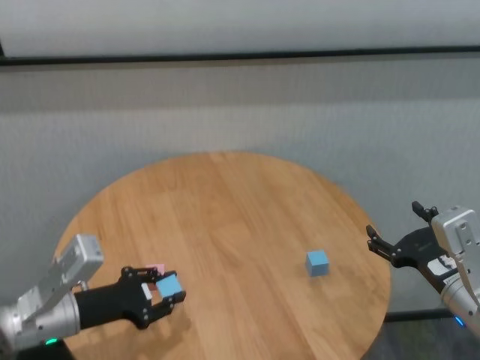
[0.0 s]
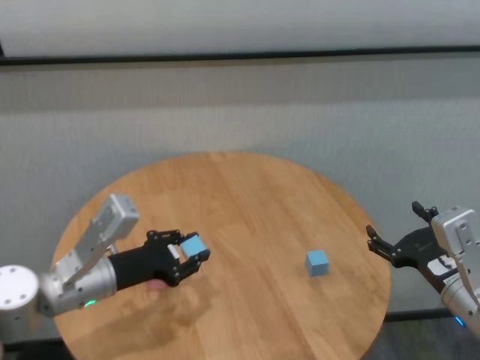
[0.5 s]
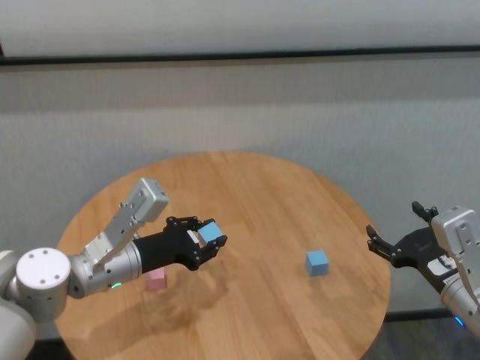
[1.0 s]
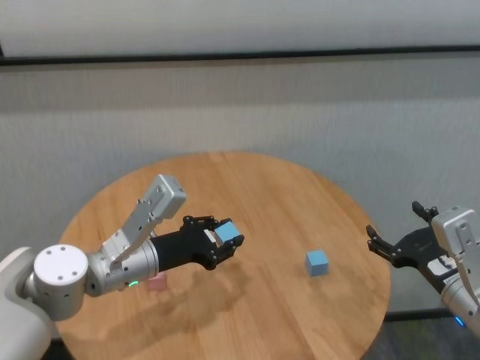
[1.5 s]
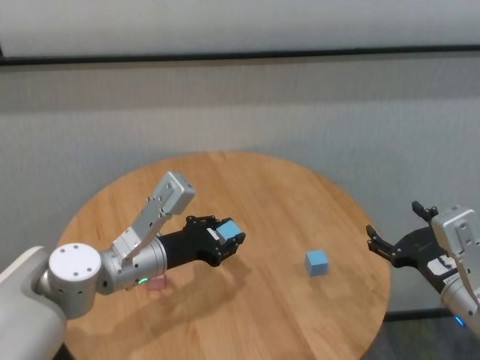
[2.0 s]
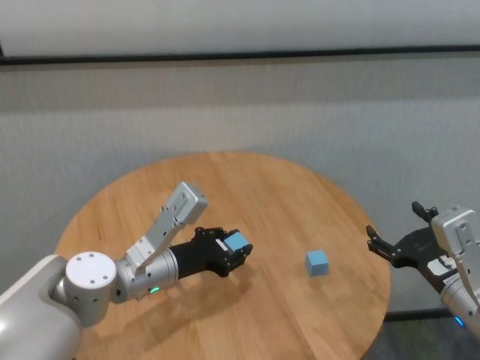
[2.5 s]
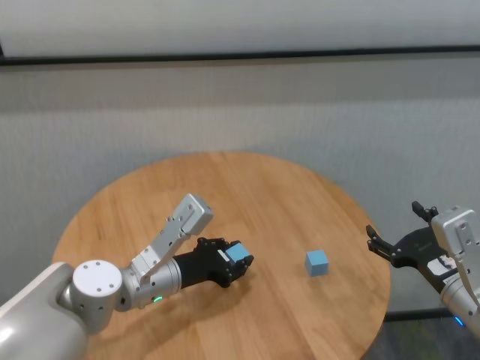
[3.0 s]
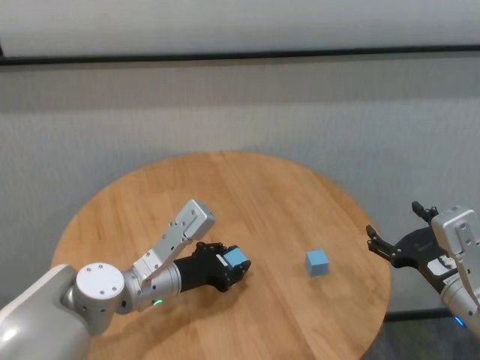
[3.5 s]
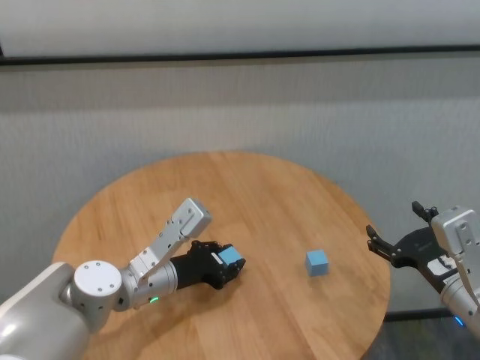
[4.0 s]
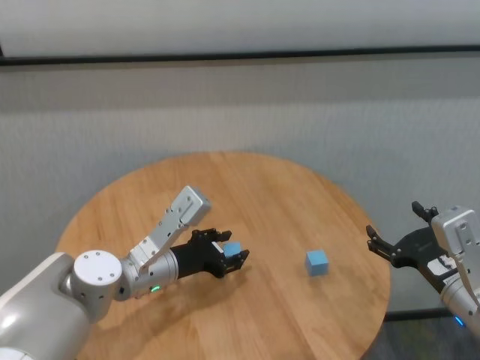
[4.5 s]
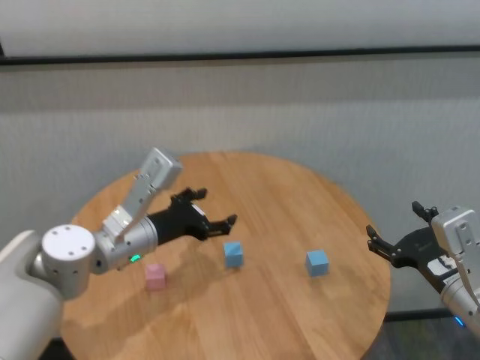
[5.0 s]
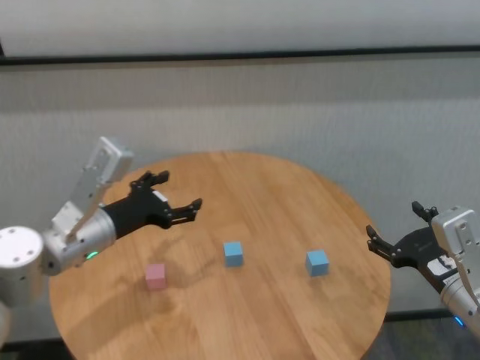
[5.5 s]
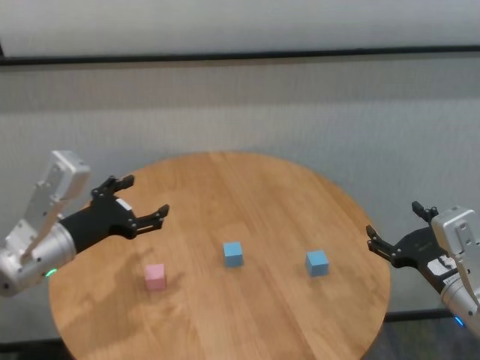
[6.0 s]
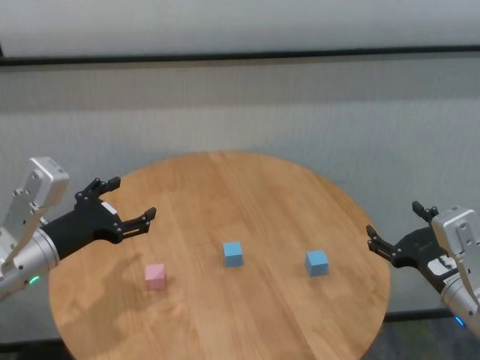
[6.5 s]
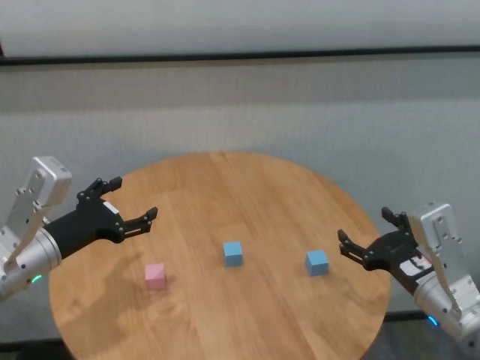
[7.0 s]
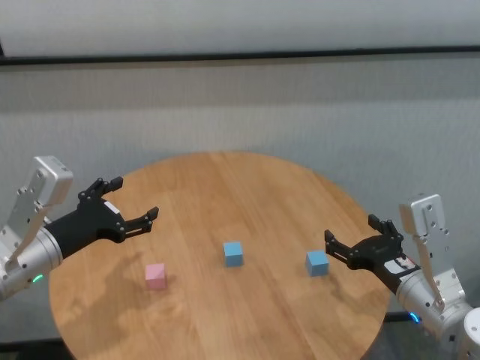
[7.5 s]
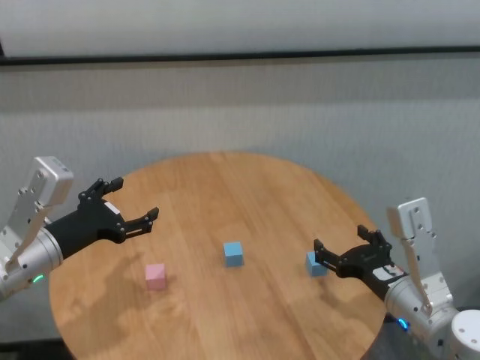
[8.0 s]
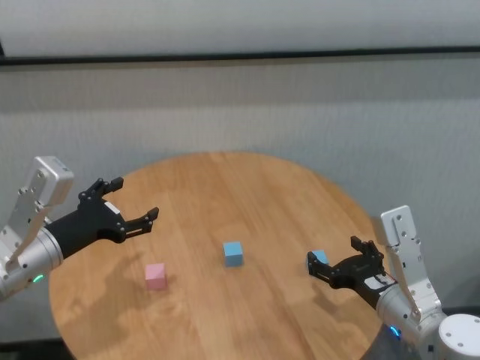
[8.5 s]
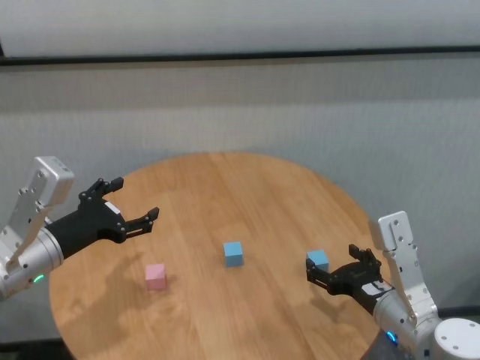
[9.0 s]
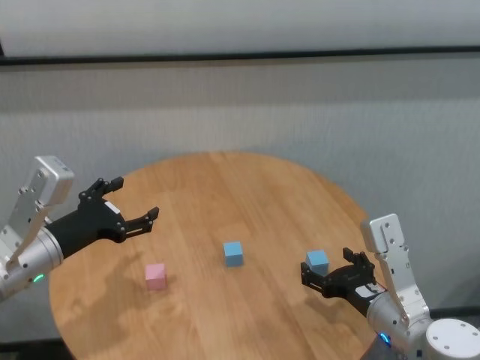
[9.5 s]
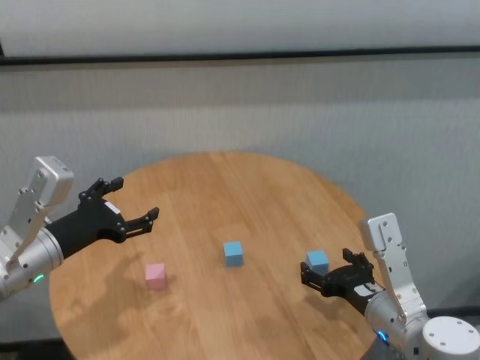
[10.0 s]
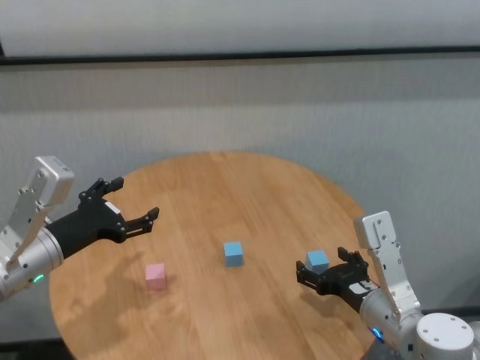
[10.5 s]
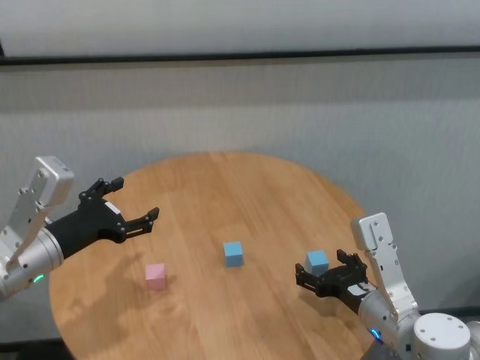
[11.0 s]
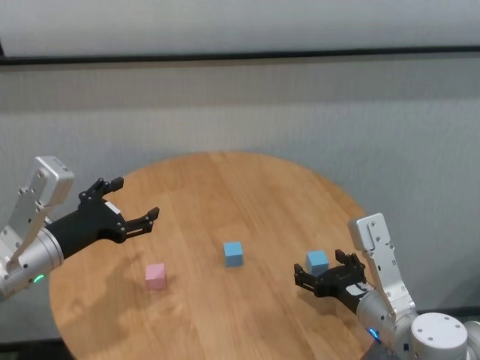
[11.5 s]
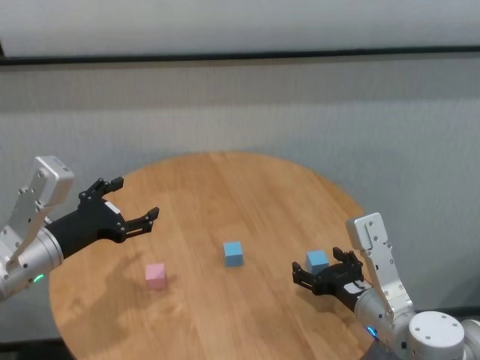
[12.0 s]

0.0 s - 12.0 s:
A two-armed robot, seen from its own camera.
Task of the whole recording: stack building blocks on the table.
Step, 0.0 s - 4.5 s: Place the blue building block in the center of table with left gripper.

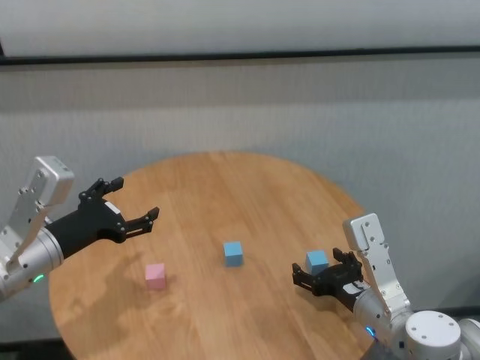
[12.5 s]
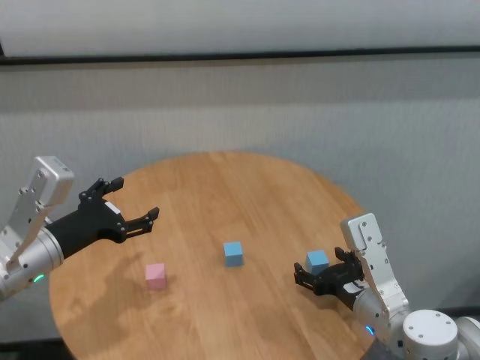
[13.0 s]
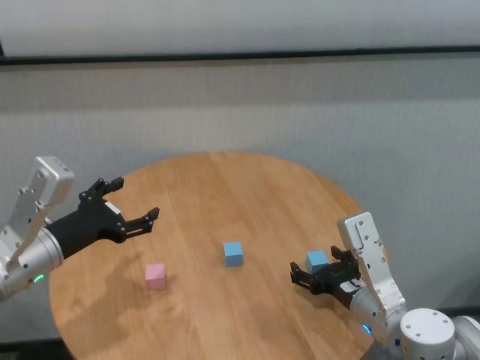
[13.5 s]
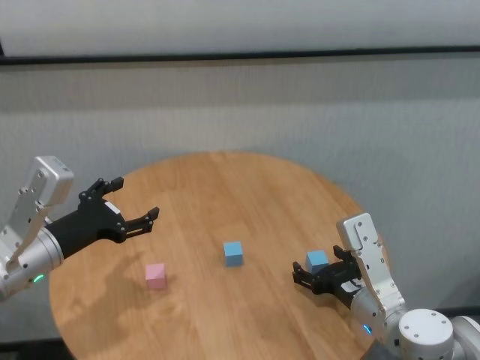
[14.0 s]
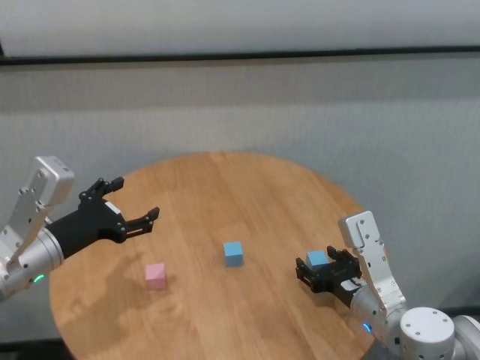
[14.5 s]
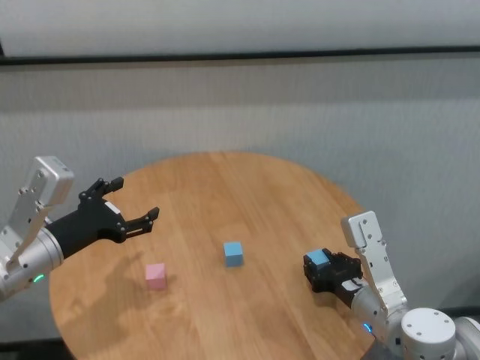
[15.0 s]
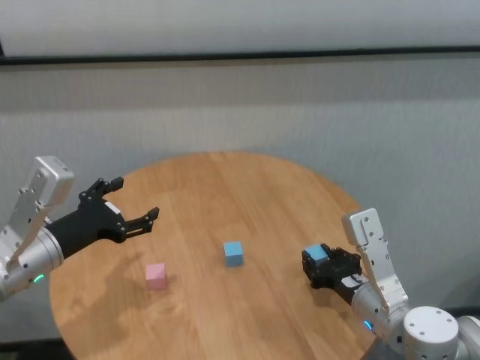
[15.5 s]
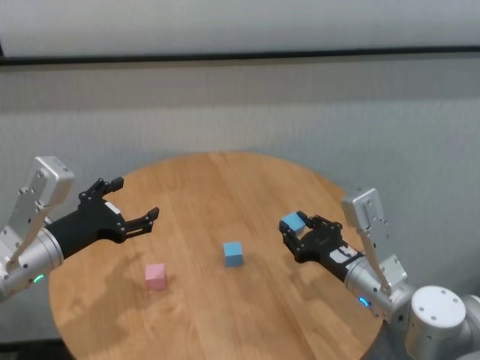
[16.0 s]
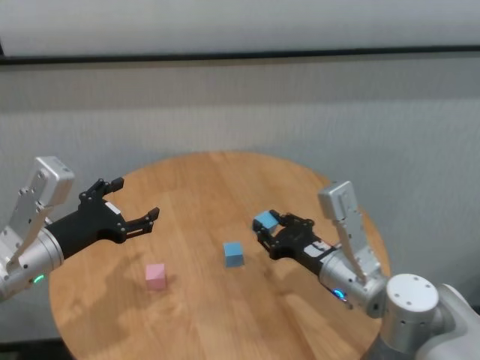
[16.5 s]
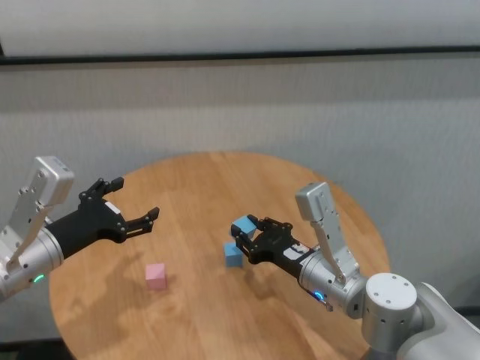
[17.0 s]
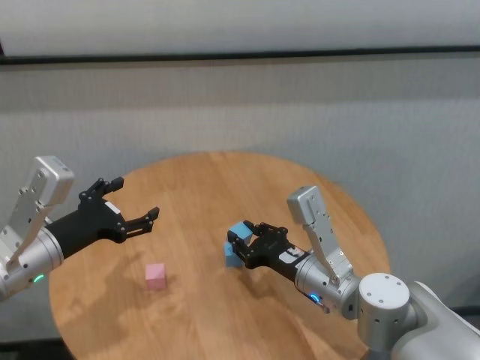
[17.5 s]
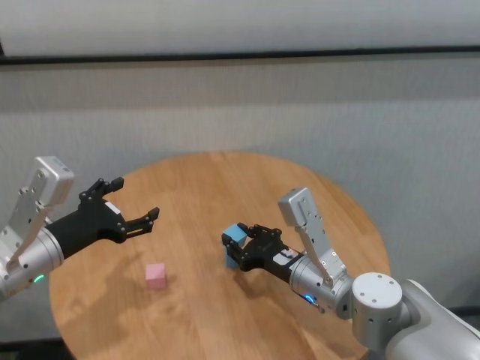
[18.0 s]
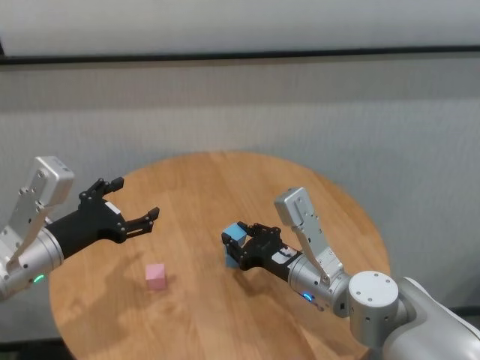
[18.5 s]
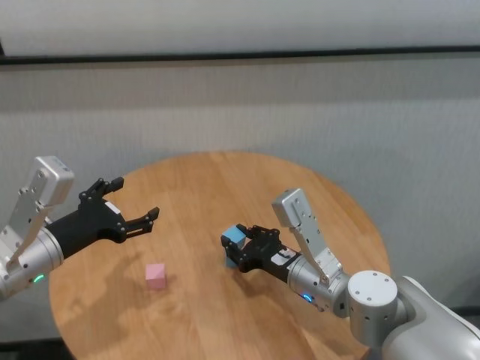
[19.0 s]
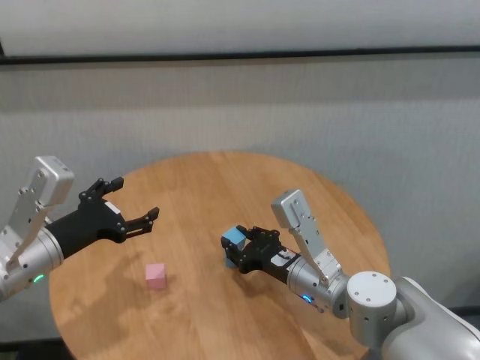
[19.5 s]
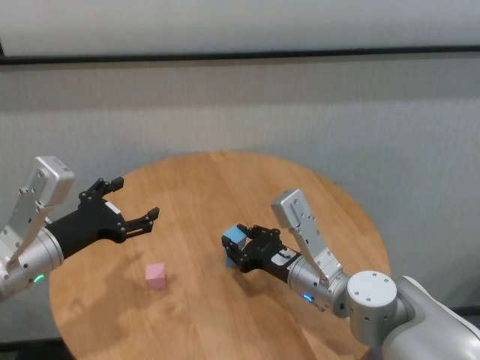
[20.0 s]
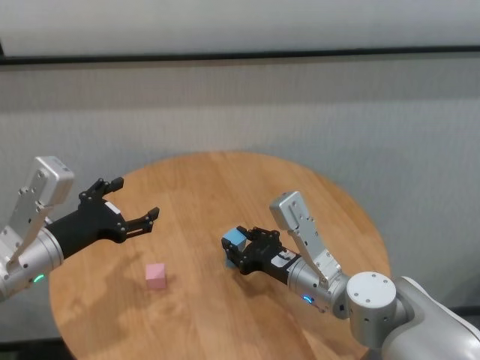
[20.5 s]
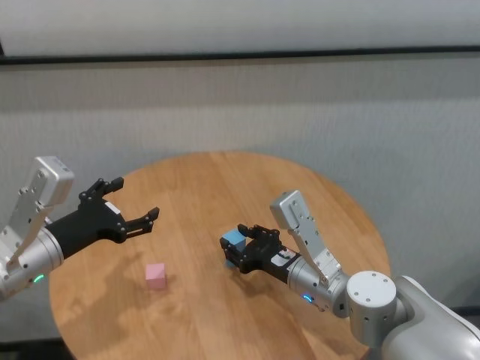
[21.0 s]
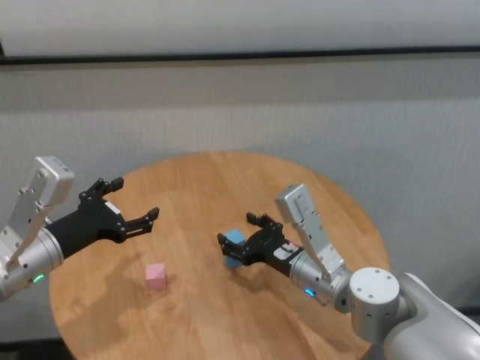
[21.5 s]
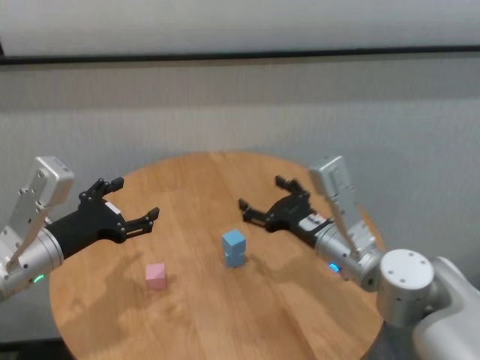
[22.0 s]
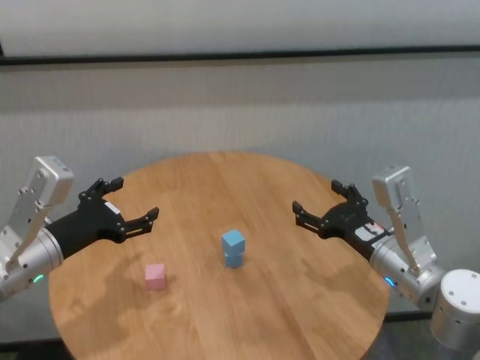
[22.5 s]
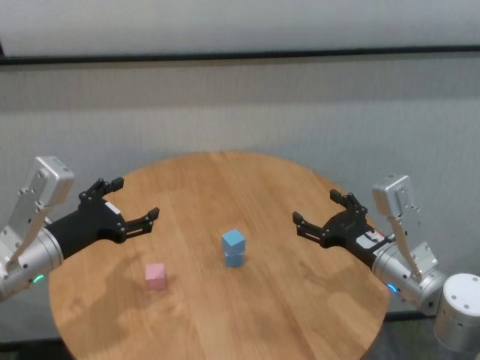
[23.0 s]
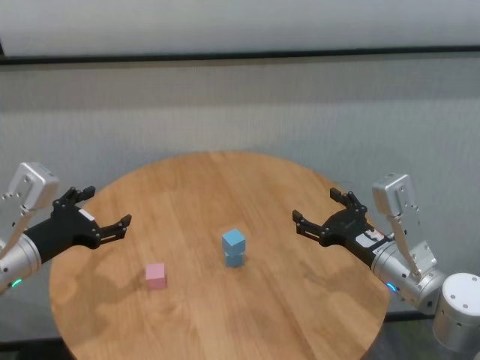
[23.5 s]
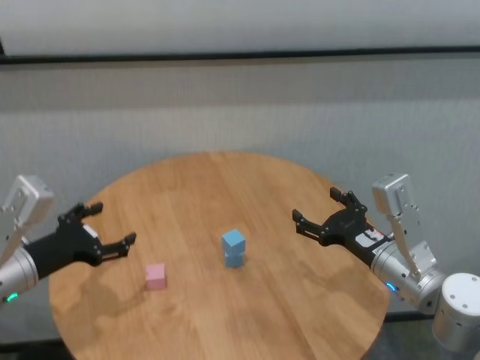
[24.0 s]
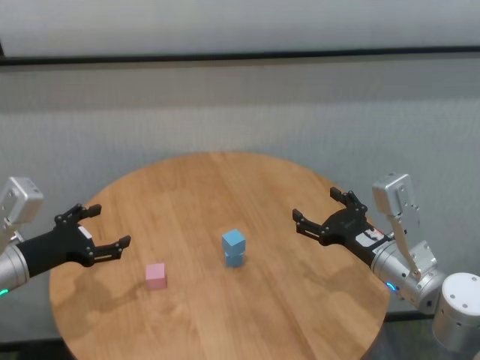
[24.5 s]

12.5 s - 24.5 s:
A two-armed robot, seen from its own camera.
Task of the whole recording: stack building blocks on the table.
Step, 12.5 s - 14.5 s: Grasp the blue building block with right gripper.
Step, 15.5 s - 21.0 s: Place the blue building block on the blue building blocks with right gripper.

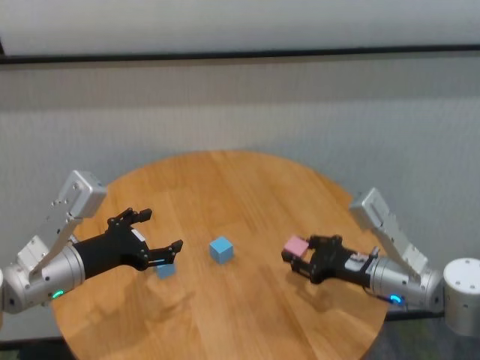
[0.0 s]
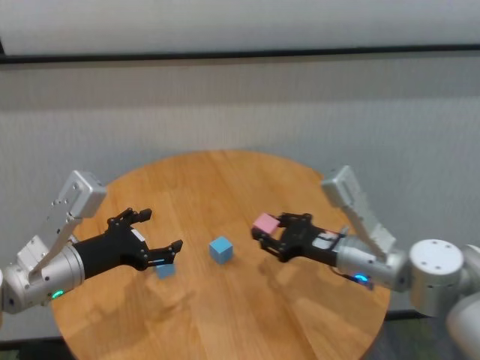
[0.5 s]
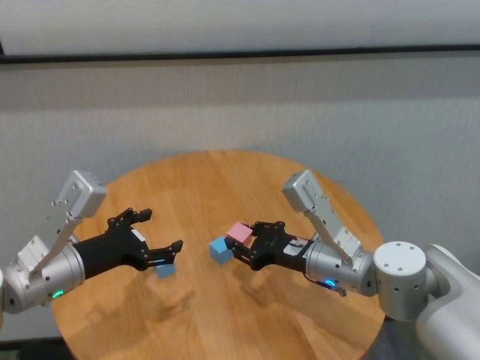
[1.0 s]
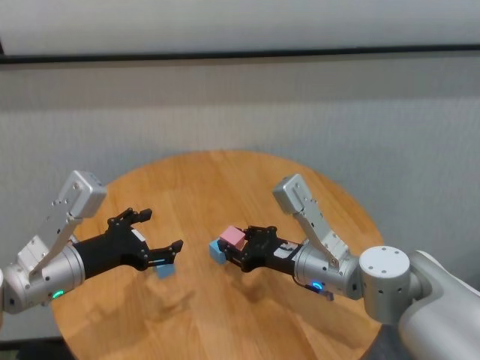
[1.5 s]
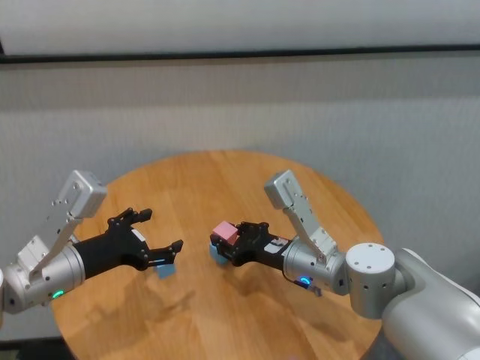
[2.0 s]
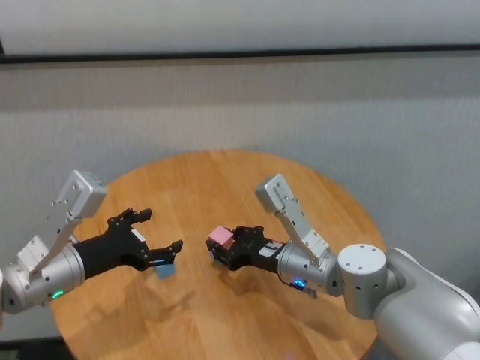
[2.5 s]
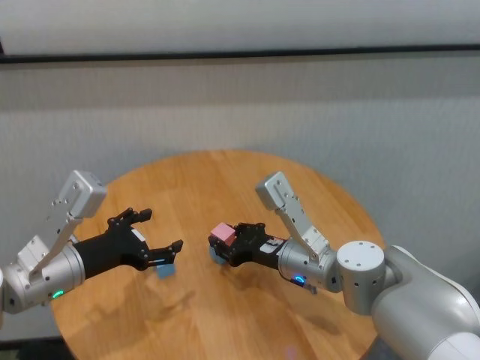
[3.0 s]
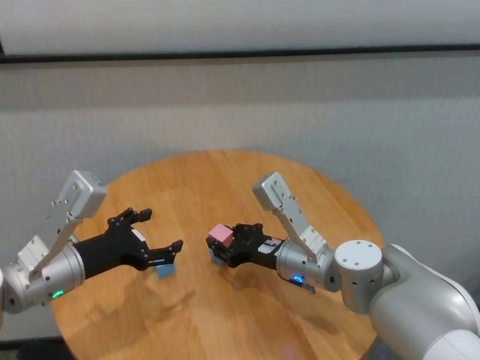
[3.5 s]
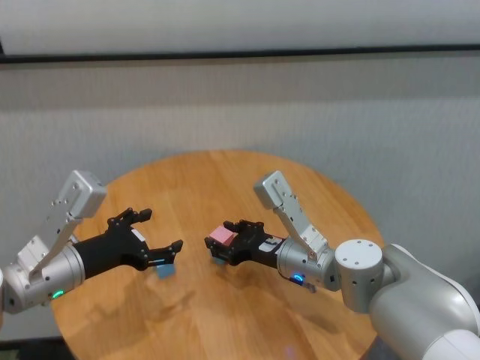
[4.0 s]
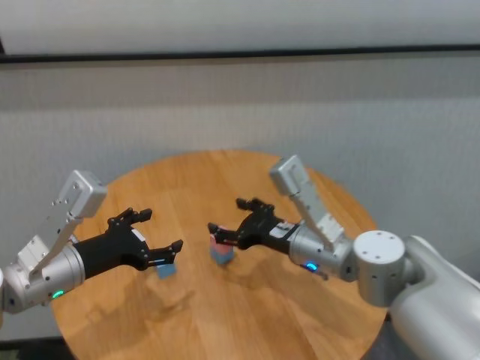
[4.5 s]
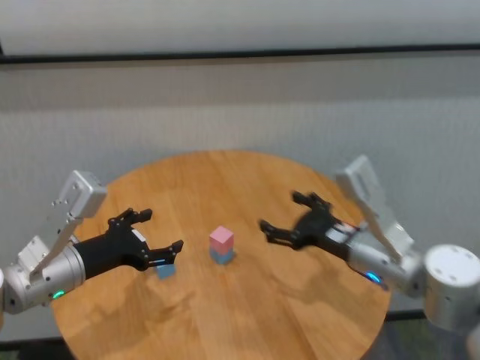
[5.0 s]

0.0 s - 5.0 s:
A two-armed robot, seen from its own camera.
Task of the whole recording: stack building blocks on the table.
Step, 0.0 s - 4.0 s: Place the pink building block on the blue building blocks with right gripper.
